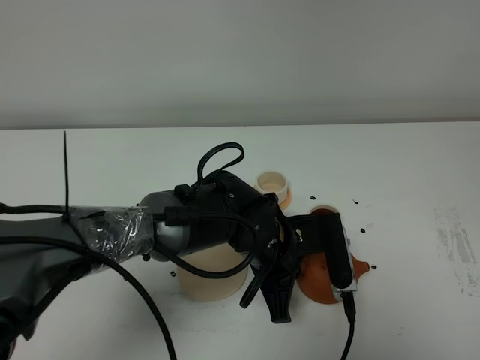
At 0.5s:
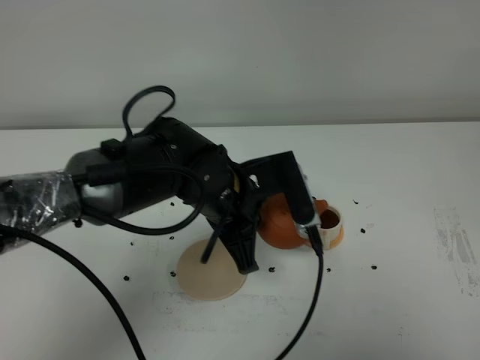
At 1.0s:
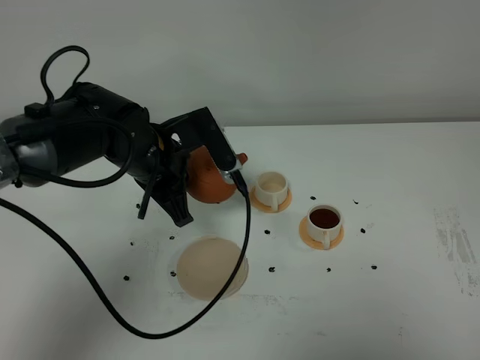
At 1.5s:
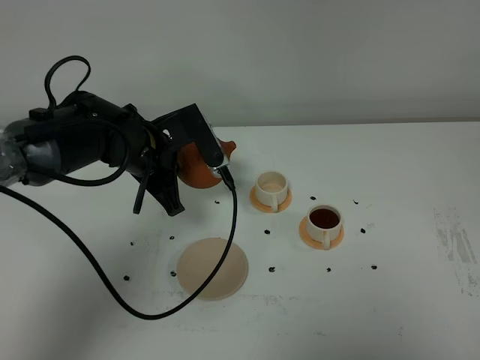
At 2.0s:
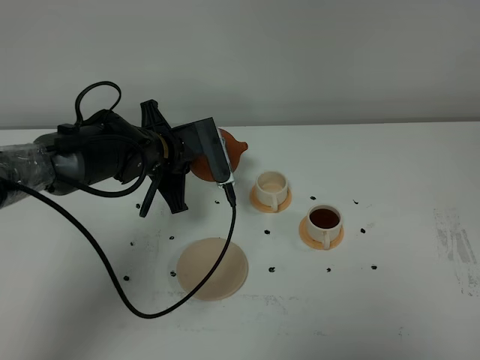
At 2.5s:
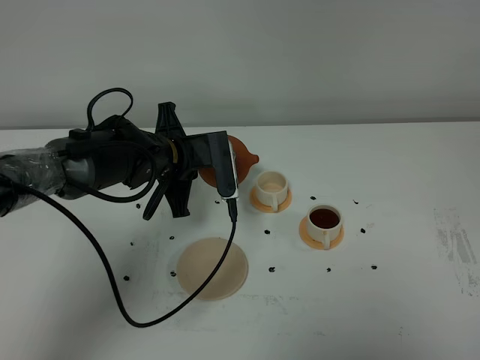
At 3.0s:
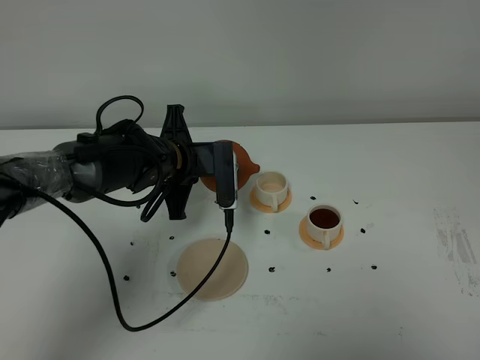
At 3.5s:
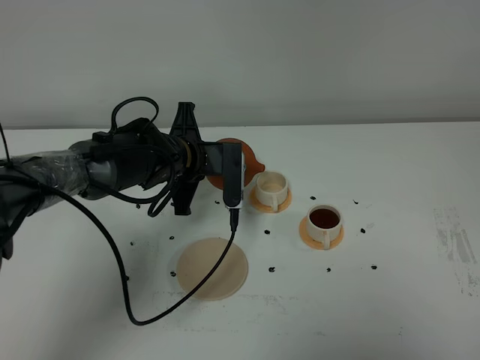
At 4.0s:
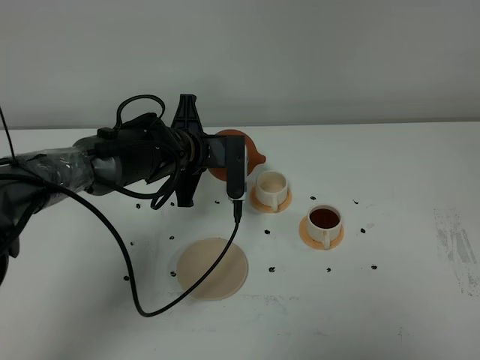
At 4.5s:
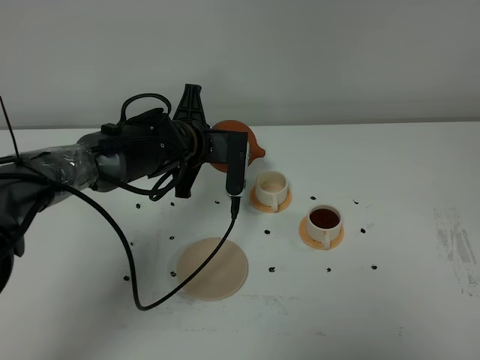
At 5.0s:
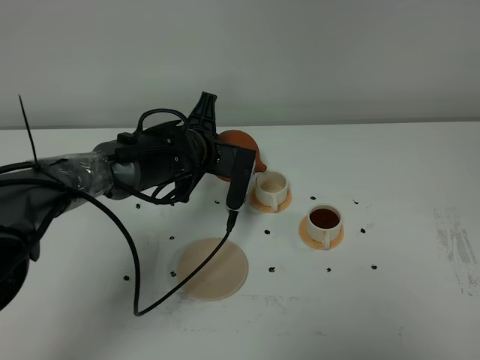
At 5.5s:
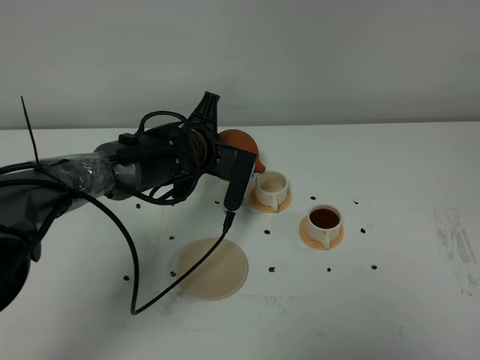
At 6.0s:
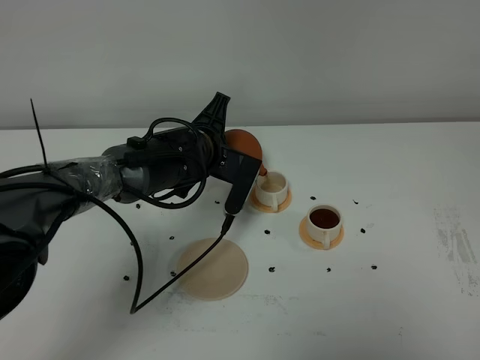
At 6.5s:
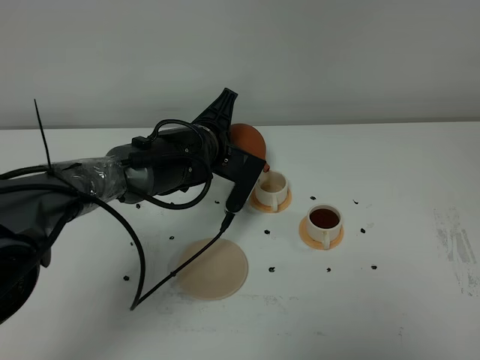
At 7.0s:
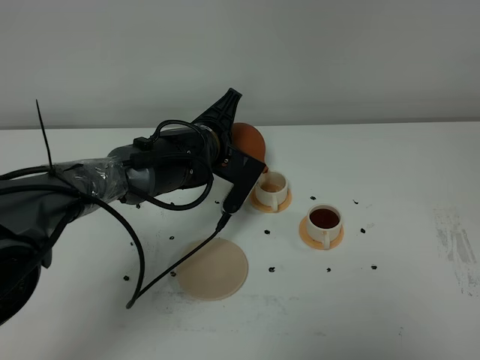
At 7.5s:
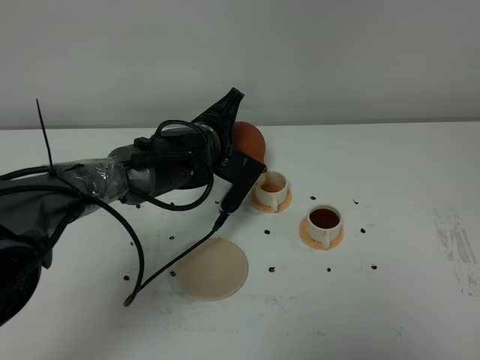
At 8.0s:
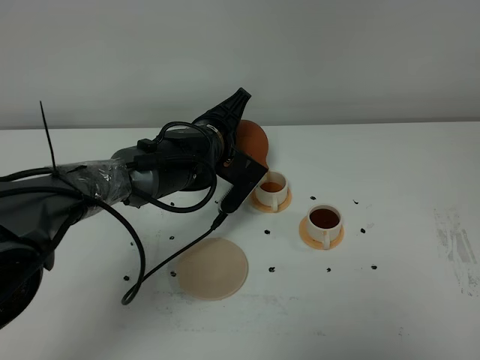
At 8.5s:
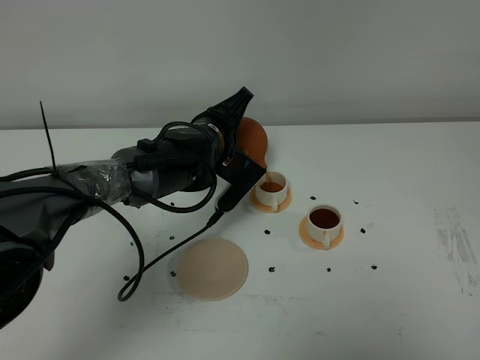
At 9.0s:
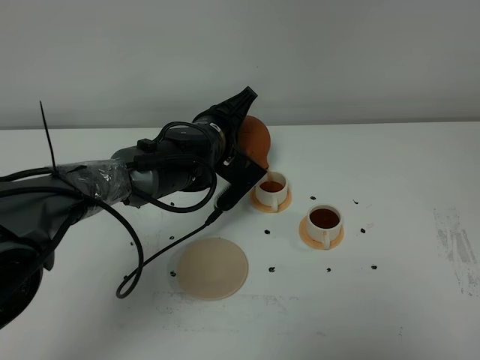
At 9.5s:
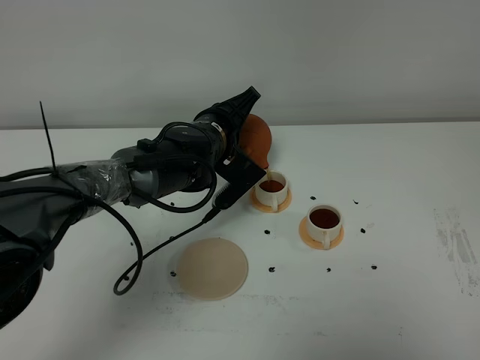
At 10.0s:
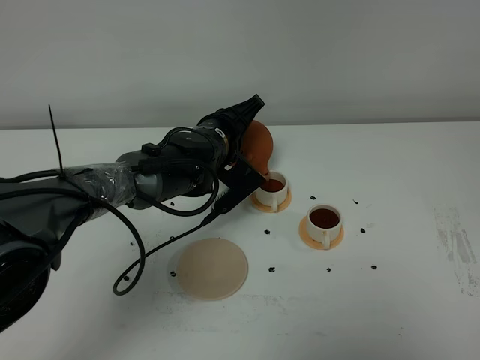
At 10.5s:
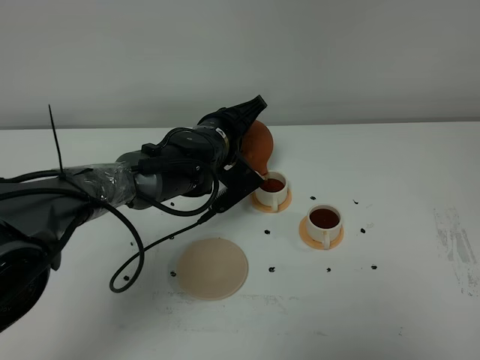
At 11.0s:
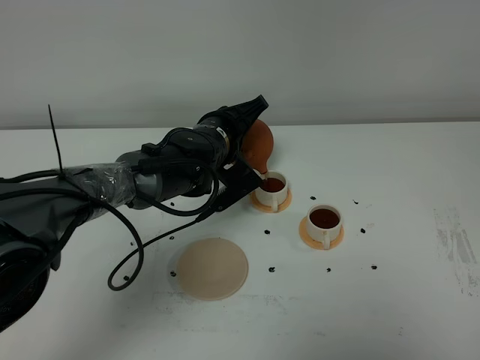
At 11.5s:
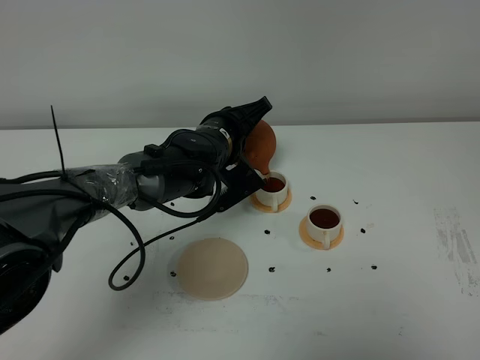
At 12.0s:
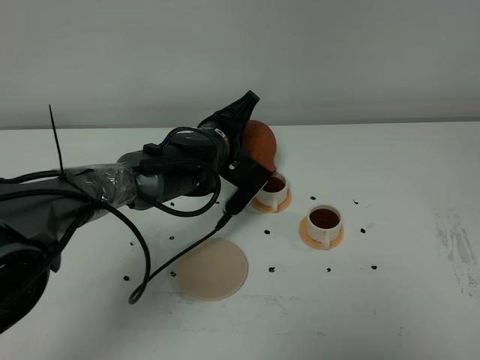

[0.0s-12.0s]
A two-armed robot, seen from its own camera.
Task of the whole recording: grasp the brown teapot and pour the tea into the two white teacups one by one, put the brown teapot back in its original place.
0.0s to 2.0s: The left gripper goes approximately 20 cm to the left and forward.
6.0s to 8.0s: There are only small adjustments of the grippers.
8.0s to 12.0s: There are only small adjustments of the grippers.

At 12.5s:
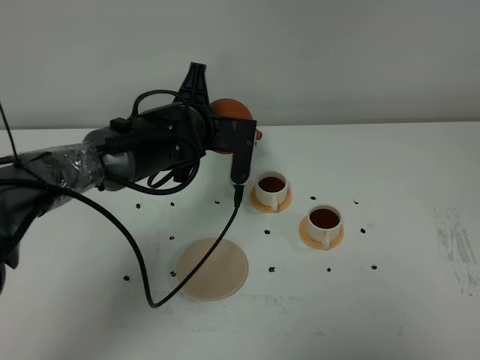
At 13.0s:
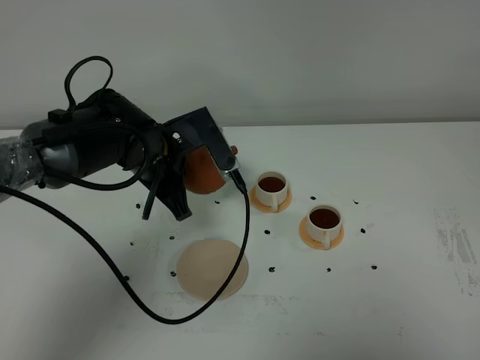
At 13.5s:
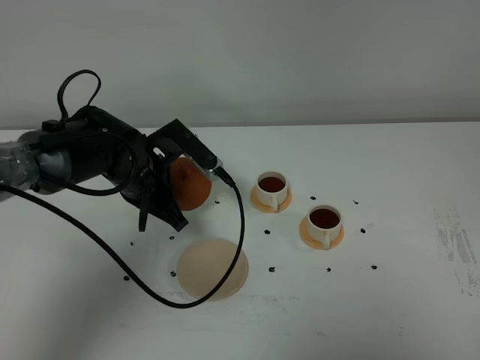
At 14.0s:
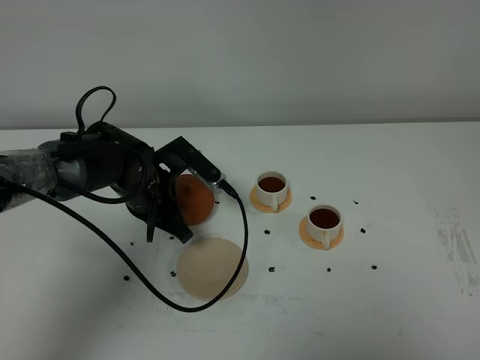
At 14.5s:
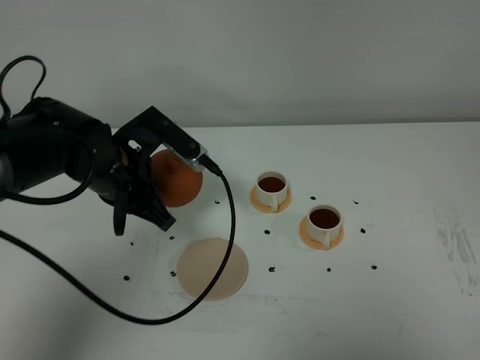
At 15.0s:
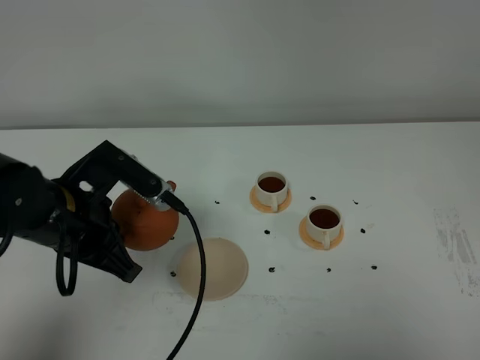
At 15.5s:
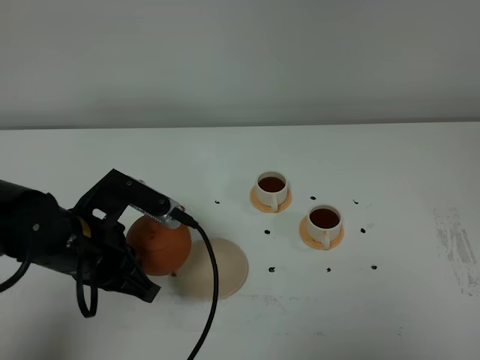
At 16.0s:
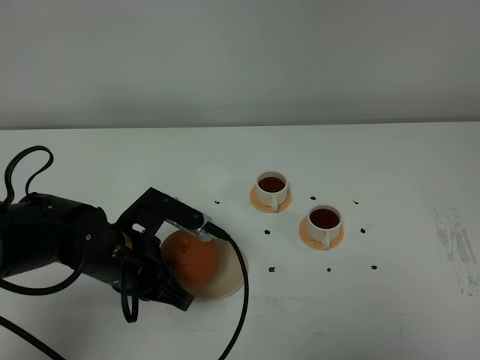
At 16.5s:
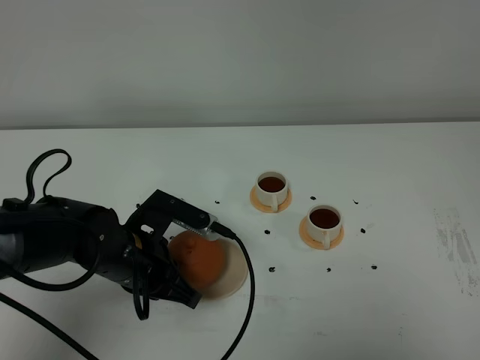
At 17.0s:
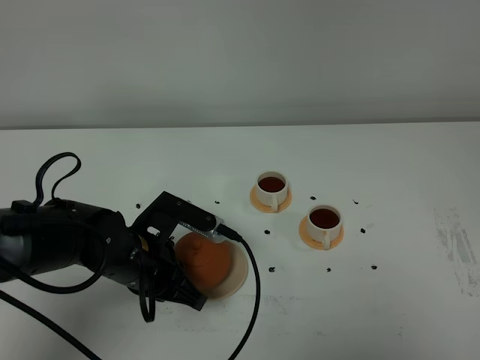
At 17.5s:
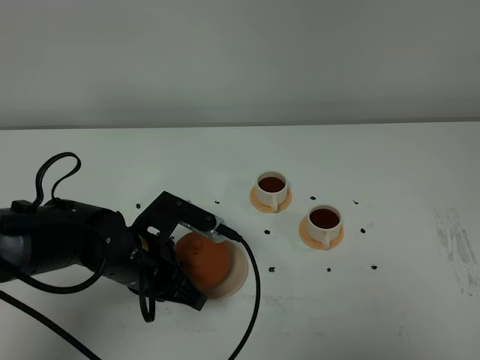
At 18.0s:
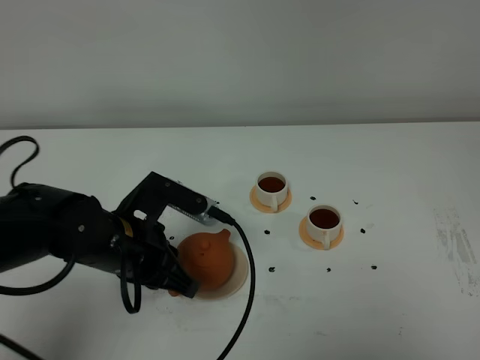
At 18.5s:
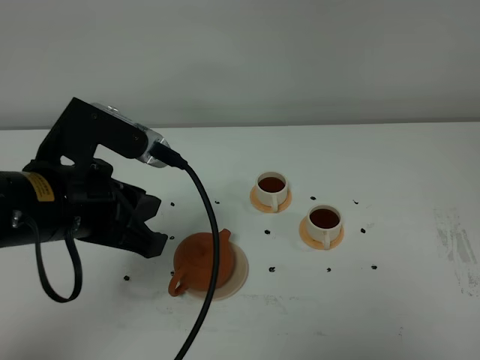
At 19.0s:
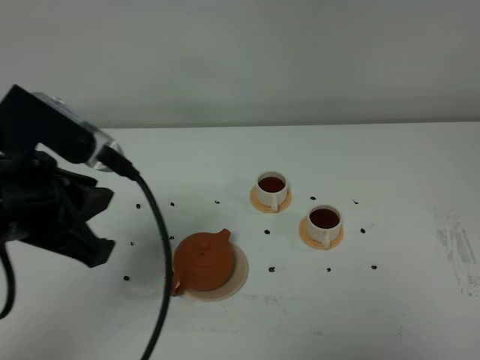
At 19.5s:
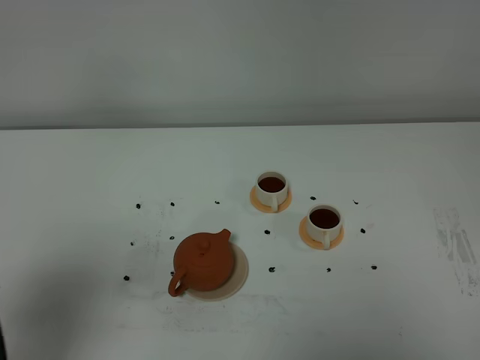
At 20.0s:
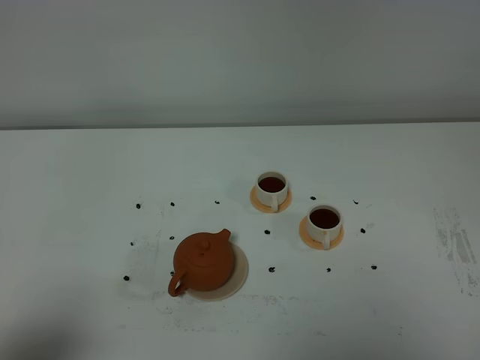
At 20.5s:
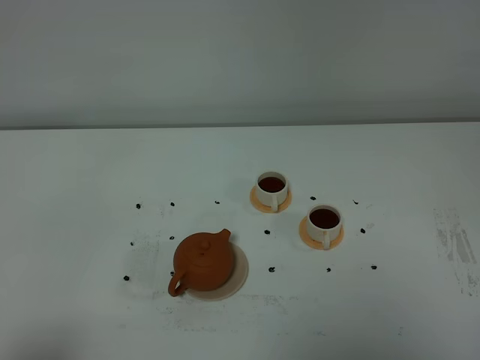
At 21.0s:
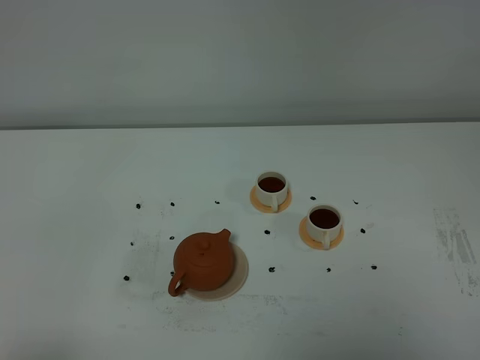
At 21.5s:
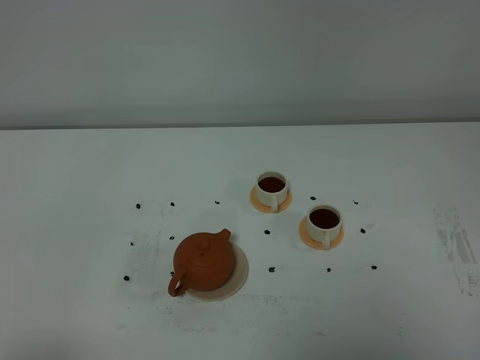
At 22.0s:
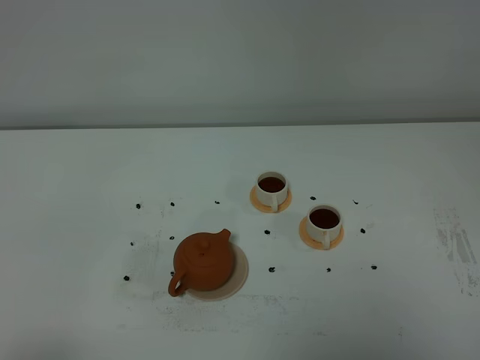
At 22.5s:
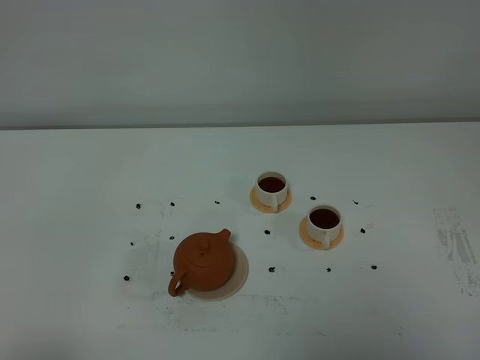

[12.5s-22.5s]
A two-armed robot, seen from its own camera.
Task of the whole recording: grasp the brown teapot and pour the tea into the two white teacups one by one, put the brown teapot back in its original place.
12.5s to 14.5s: The left gripper travels to the left and backward by approximately 10 cm.
14.5s to 16.5s: The left gripper moves downward and backward, about 10 cm.
16.5s to 18.5s: The left gripper goes approximately 15 cm upward.
18.5s to 20.5s: The left gripper travels backward and to the left by some 25 cm, and closes up.
